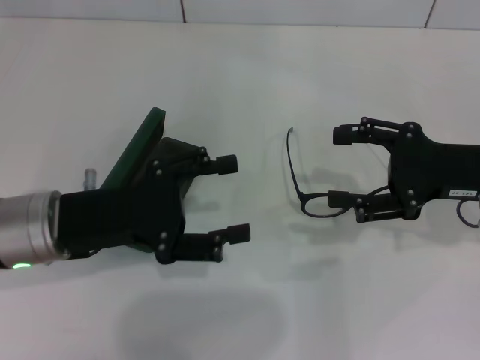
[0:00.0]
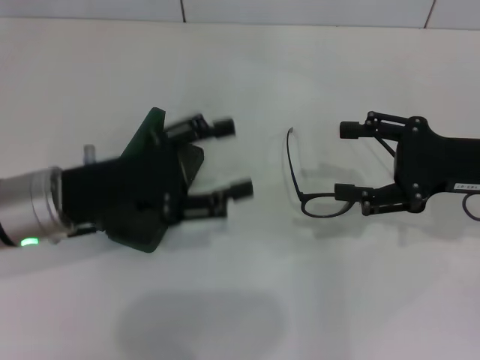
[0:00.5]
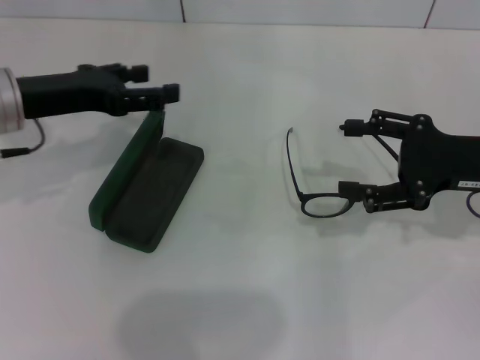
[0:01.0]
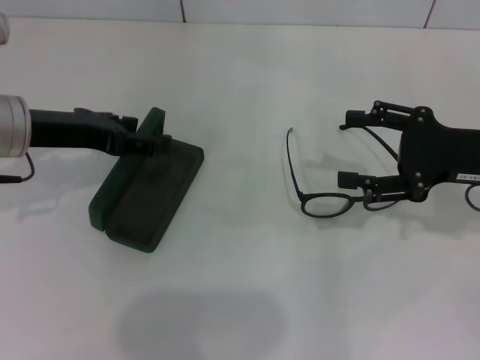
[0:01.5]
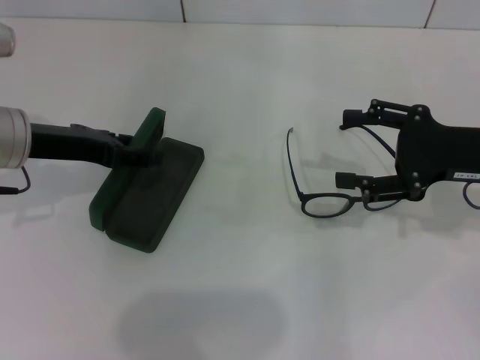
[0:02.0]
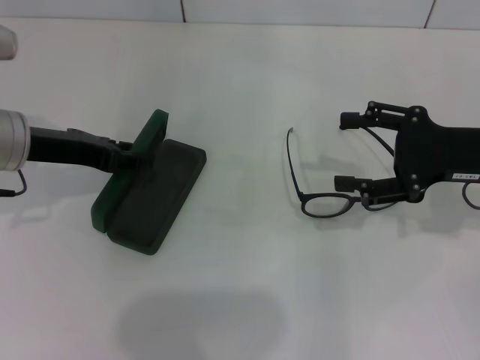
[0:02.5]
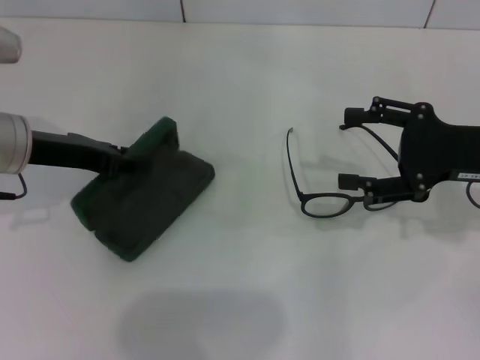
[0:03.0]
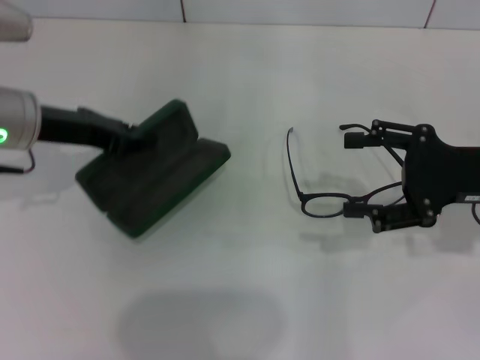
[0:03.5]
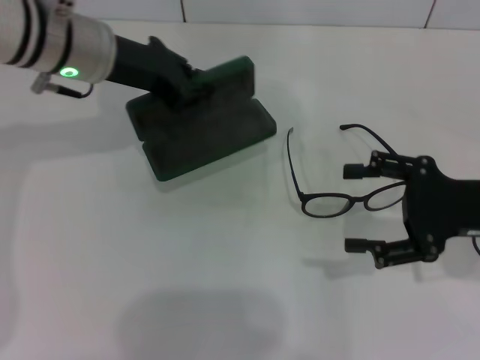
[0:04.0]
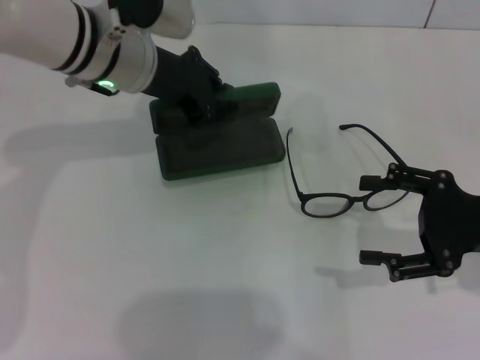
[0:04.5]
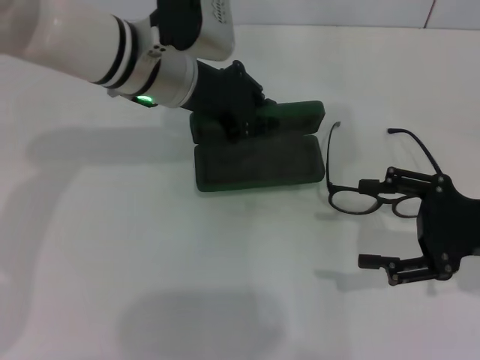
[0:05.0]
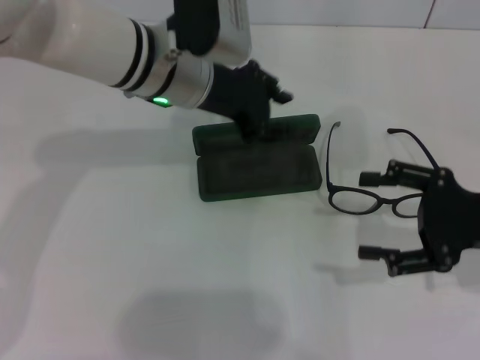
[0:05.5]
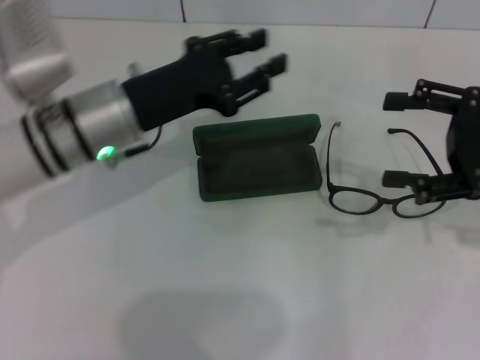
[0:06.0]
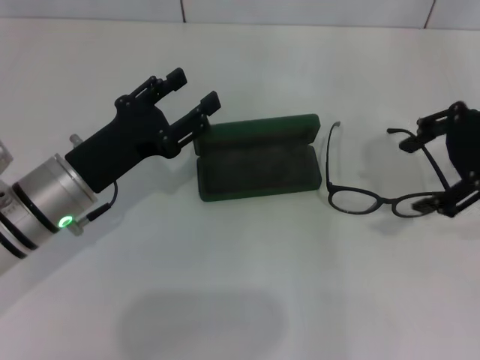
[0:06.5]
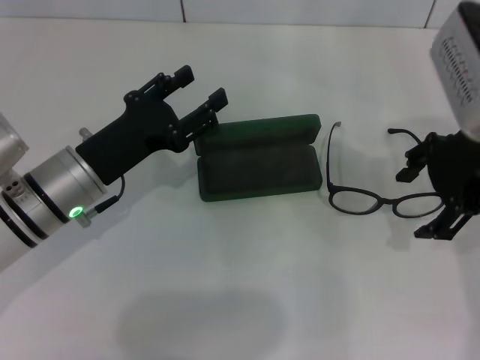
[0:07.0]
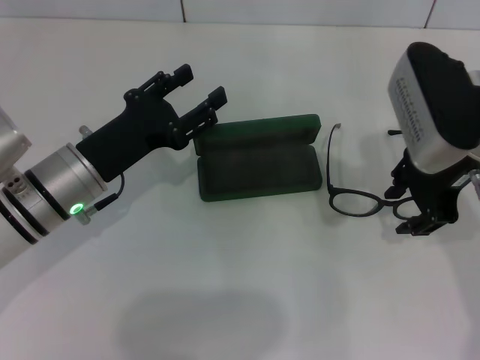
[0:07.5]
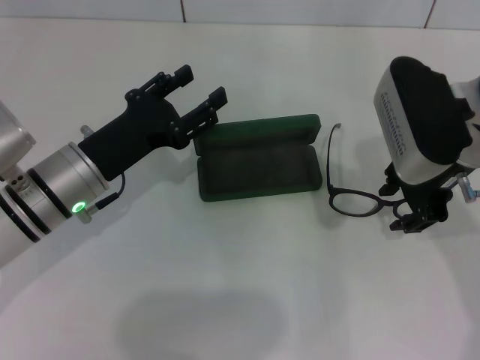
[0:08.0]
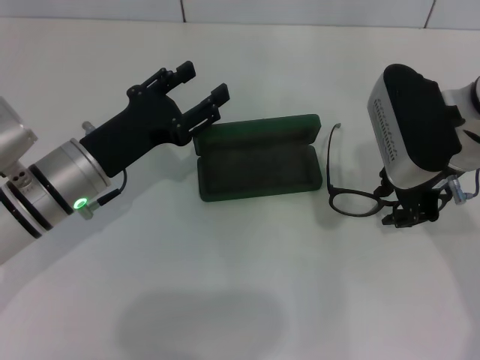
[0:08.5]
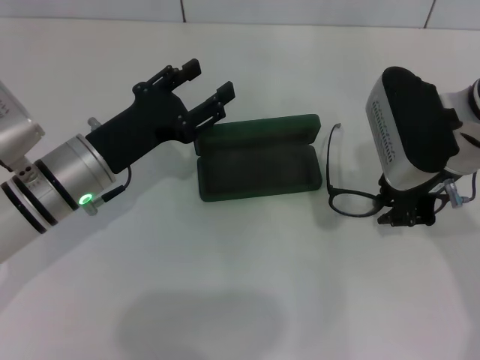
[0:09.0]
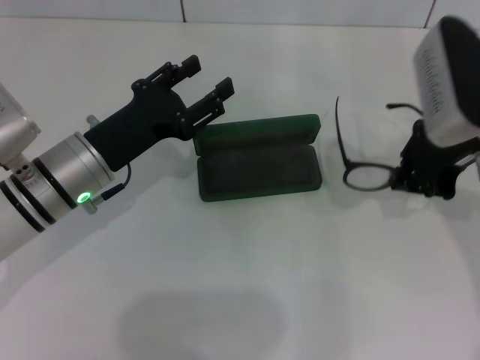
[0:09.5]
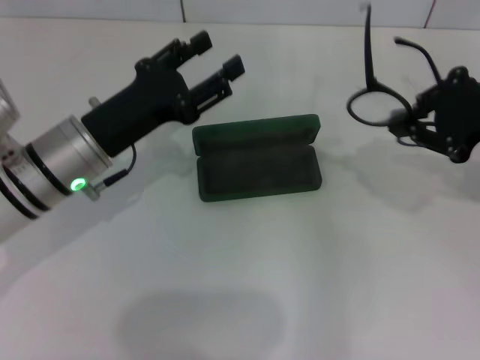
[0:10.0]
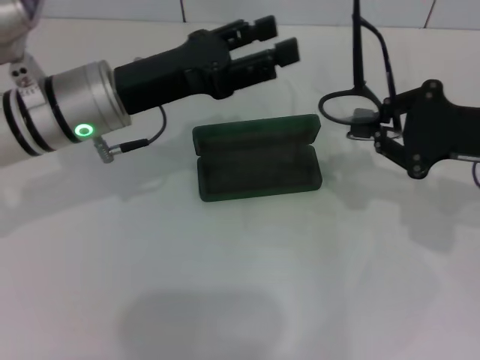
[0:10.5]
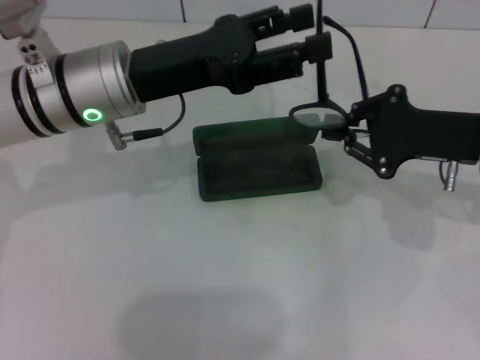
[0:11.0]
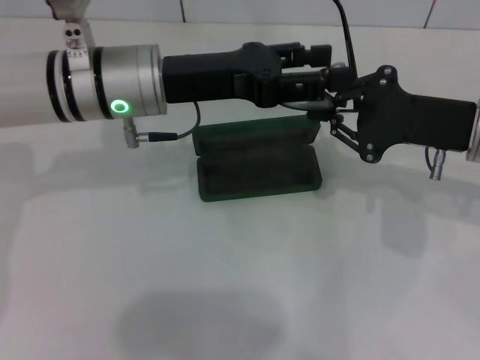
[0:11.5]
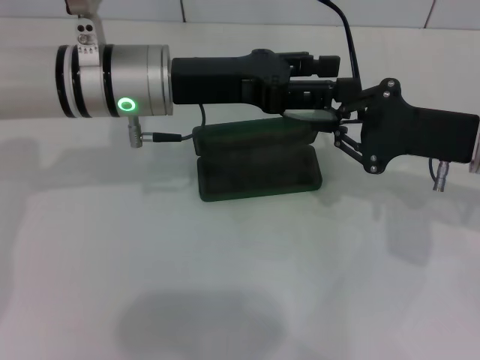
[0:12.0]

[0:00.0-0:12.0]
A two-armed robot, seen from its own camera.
Step, 0:00.0 to 0:03.0: Grab the glasses case with your left hand.
Step, 0:03.5 to 0:05.0: Place the glasses case in the center of the table with your left hand.
Step, 0:05.5 to 0:09.0: Grab the eyeglass frame with your right hand.
0:00.0 to 0:02.0: The left gripper heads forward, covering some 10 cm.
0:02.0 to 0:04.0: The left gripper shifts roughly 10 cm to the right and forward, and closes its fingers.
0:04.0 to 0:06.0: The right gripper moves roughly 5 cm; the left gripper travels downward and backward by roughly 10 cm, reaches roughly 10 cm to the right, then returns, and opens.
0:06.0 to 0:08.0: The left gripper moves downward, approximately 5 cm, and opens its fingers; the right gripper moves to the left, approximately 10 cm, and closes its fingers.
0:08.0 to 0:10.0: The right gripper is displaced to the right by some 10 cm, and closes its fingers.
0:10.0 to 0:12.0: The left gripper moves upward, to the right and forward, roughly 10 cm. The right gripper moves downward, approximately 10 cm.

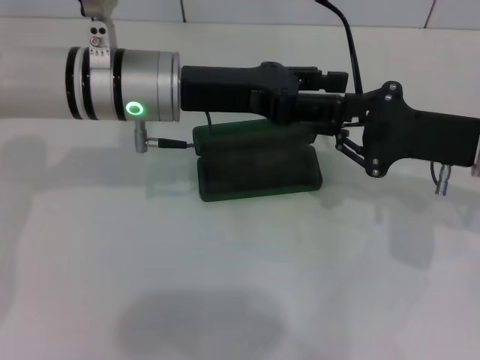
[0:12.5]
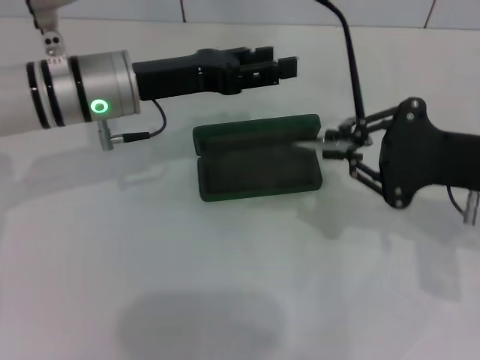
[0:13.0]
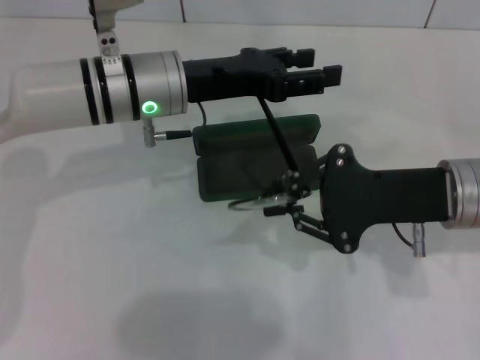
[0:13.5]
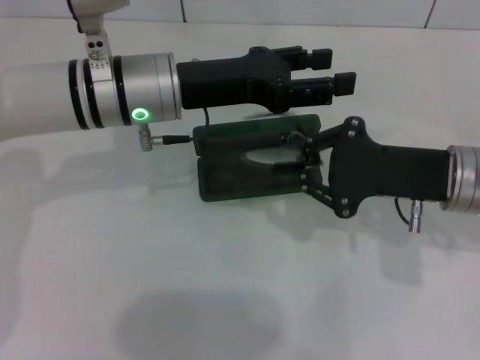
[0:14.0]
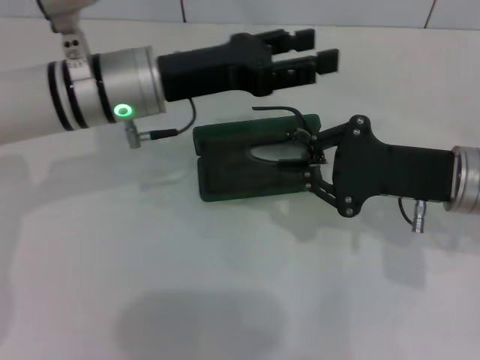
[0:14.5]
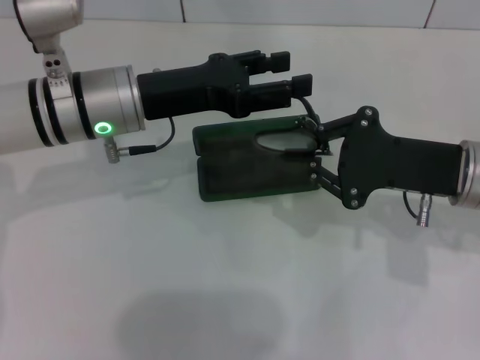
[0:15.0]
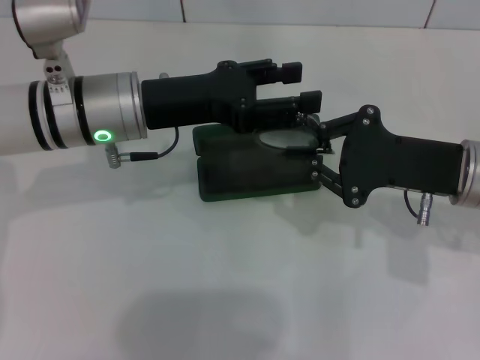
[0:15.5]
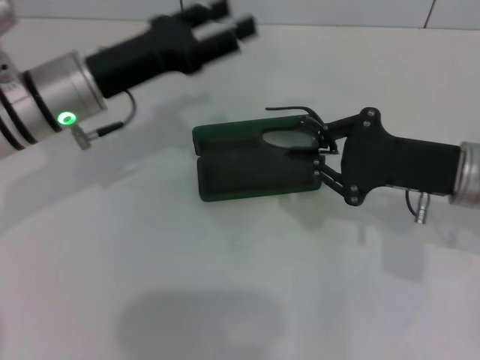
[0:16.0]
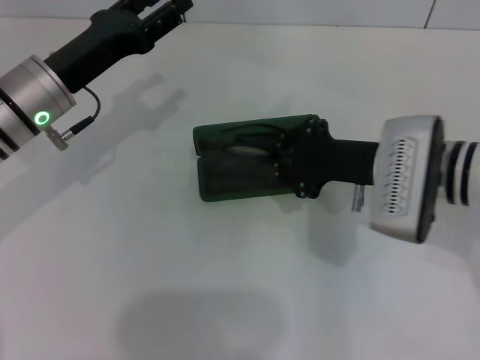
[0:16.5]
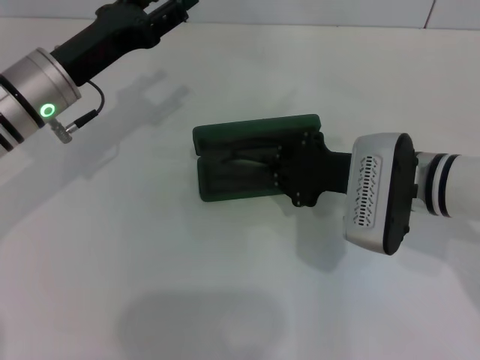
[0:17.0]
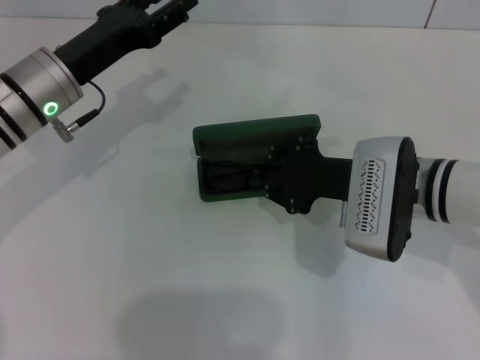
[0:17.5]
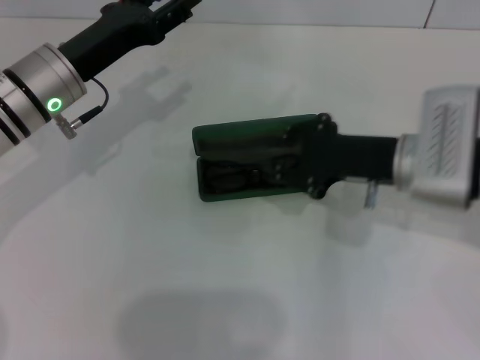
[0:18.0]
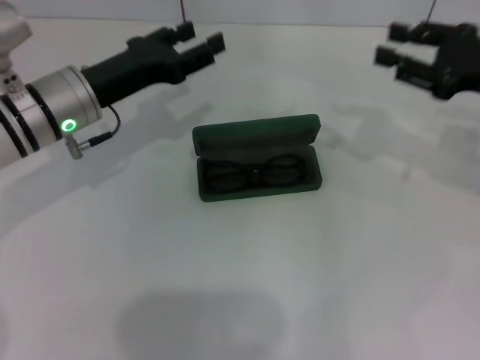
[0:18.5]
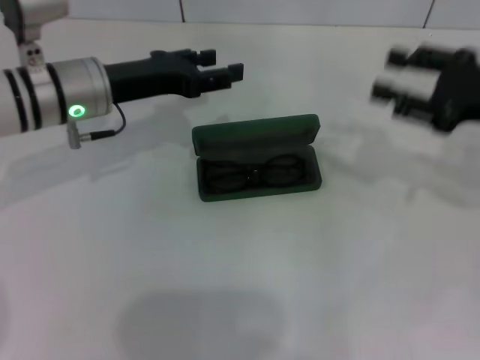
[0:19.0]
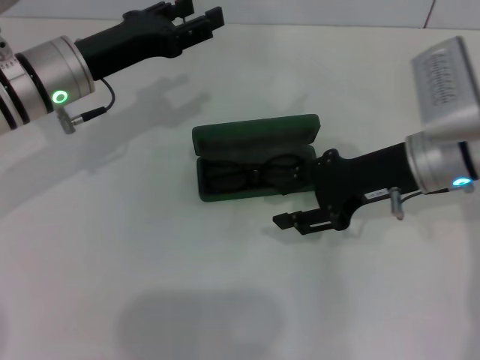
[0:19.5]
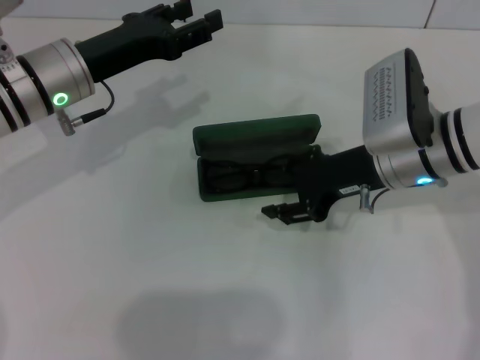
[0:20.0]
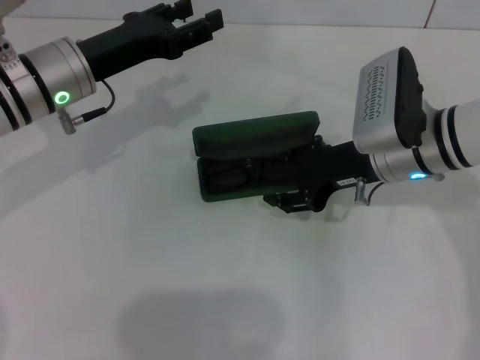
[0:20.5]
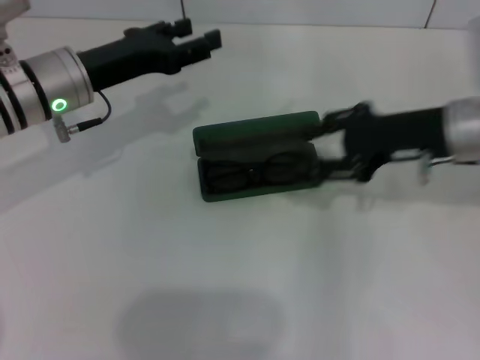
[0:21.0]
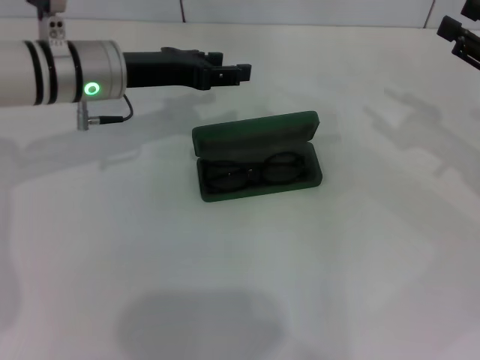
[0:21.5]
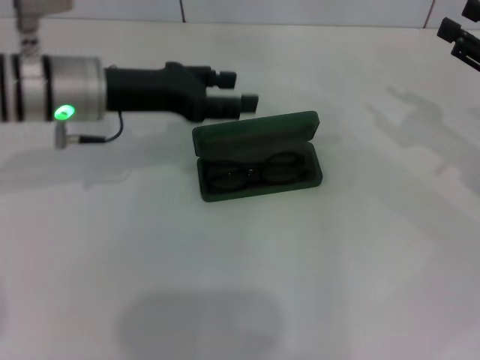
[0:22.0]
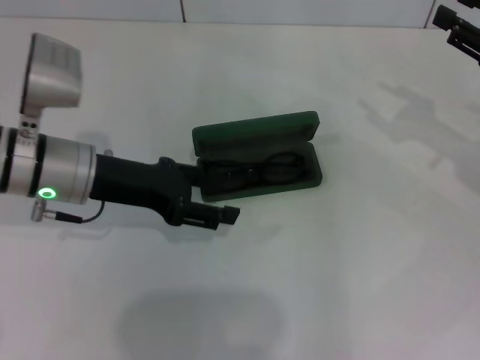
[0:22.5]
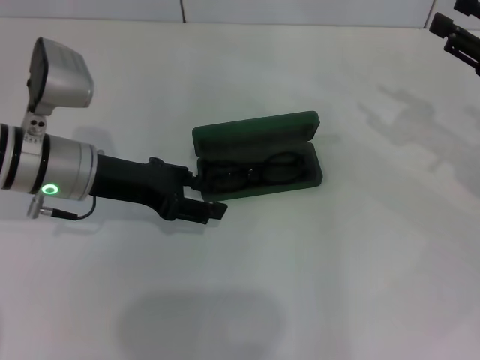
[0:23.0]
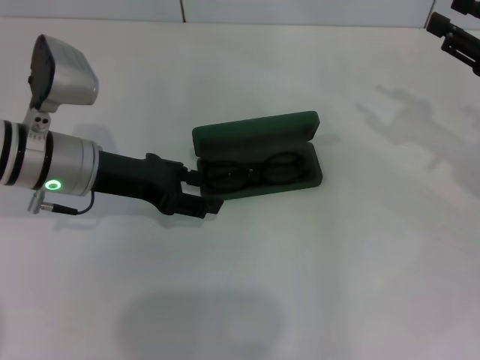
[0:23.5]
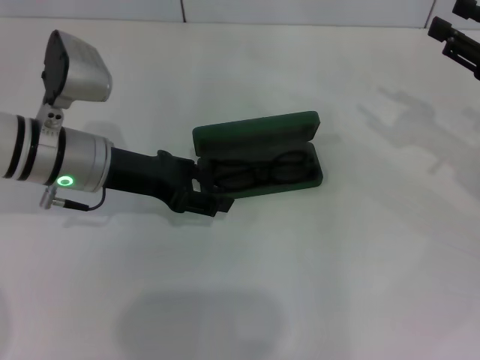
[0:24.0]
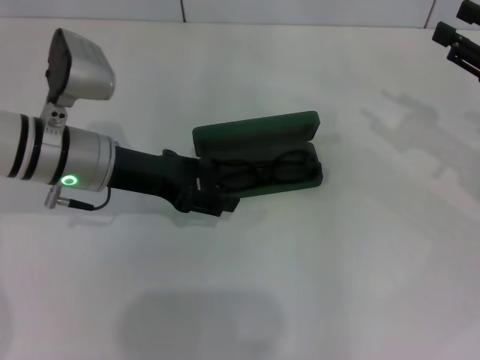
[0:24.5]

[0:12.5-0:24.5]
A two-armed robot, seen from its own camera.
Step, 0:12.5 to 0:15.0: Fold the frame with your left hand.
0:14.5 to 0:16.5: The right gripper goes approximately 5 cm to the left; the left gripper heads to the left, covering some 10 cm.
0:16.5 to 0:18.5: The right gripper goes roughly 15 cm to the right and upward, and opens up.
0:18.5 to 0:20.5: The right gripper moves to the left, approximately 15 cm.
0:20.5 to 0:22.5: The left gripper heads backward, covering roughly 5 cm. Meanwhile the right gripper goes some 15 cm to the right.
0:22.5 to 0:24.5: The grippers stay close to where they were, moving slightly.

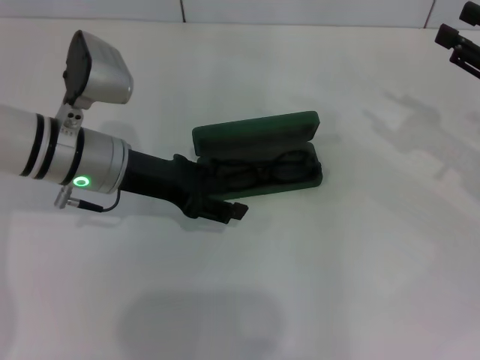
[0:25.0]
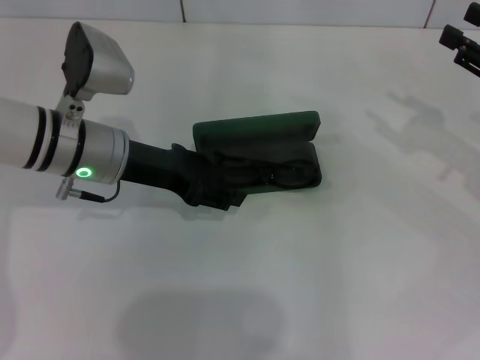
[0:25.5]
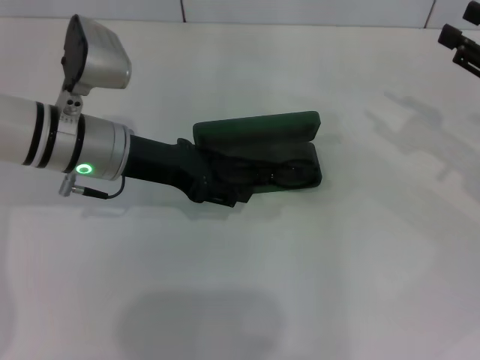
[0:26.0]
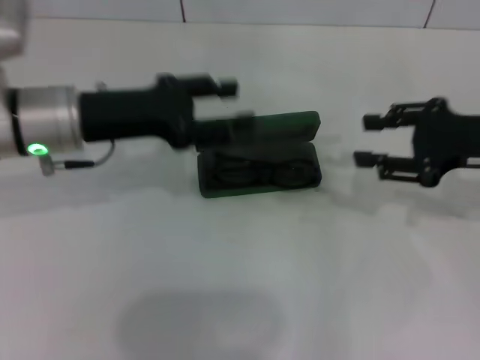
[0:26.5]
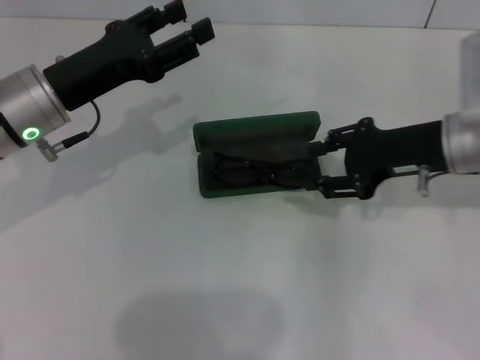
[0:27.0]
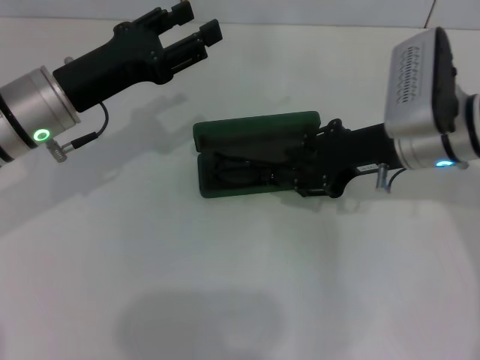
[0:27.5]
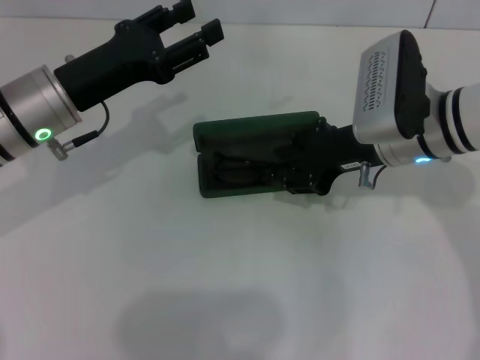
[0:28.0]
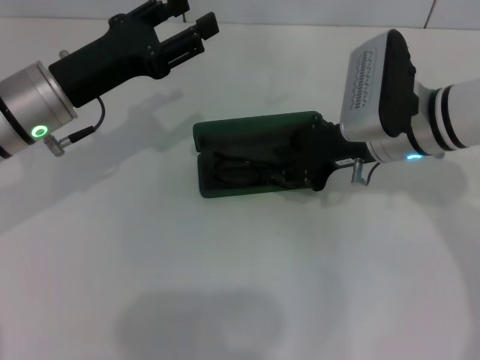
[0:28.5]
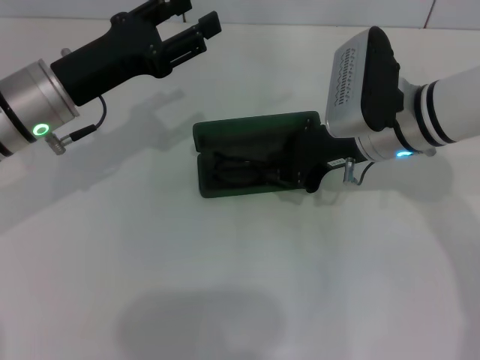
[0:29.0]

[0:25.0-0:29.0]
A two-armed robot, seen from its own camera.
0:25.0 to 0:27.0: The left gripper shifts by some 5 cm. Meanwhile the right gripper shifts some 10 cm to the left.
0:27.0 to 0:29.0: The right gripper shifts approximately 10 cm to the left.
